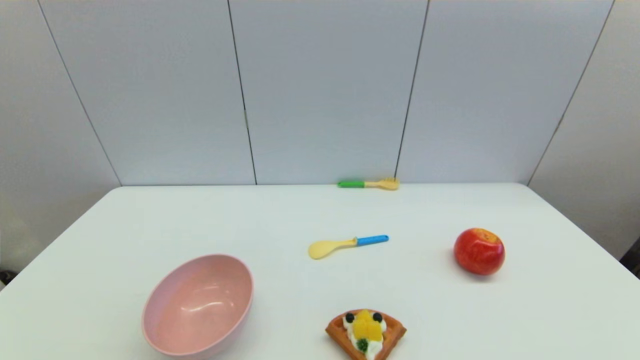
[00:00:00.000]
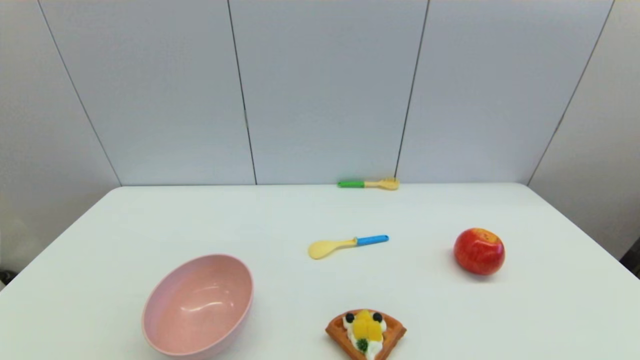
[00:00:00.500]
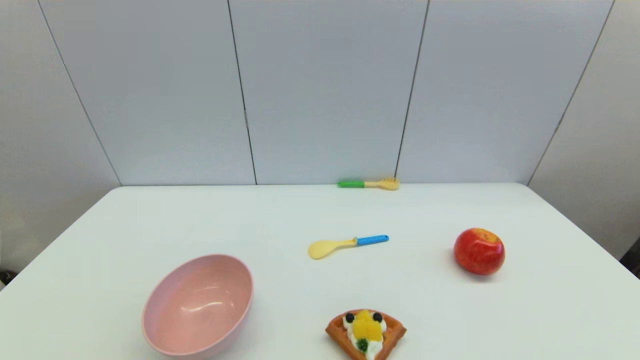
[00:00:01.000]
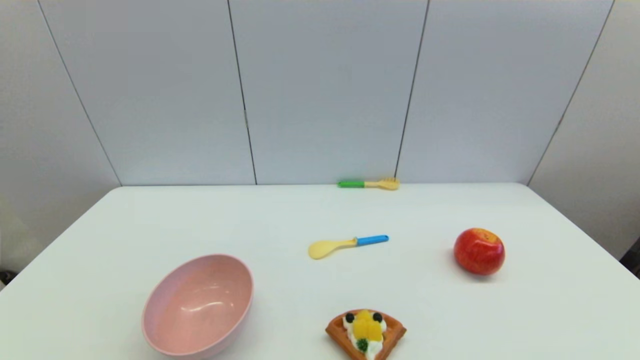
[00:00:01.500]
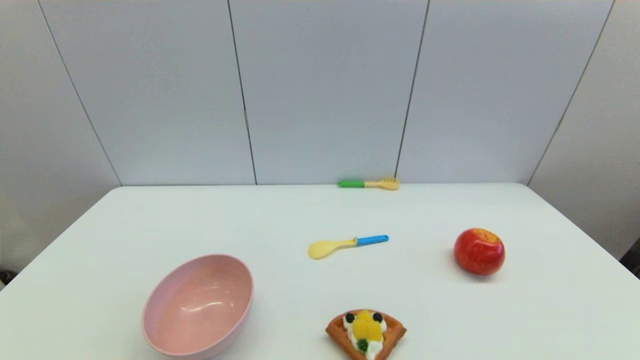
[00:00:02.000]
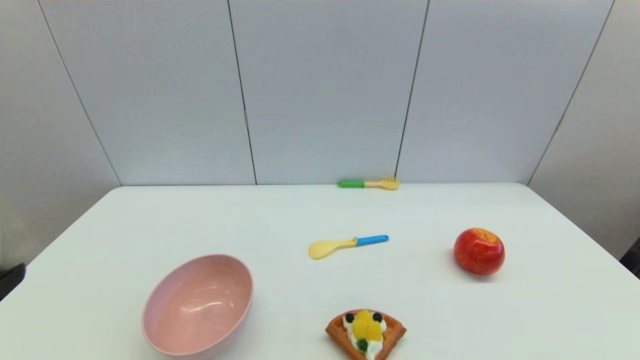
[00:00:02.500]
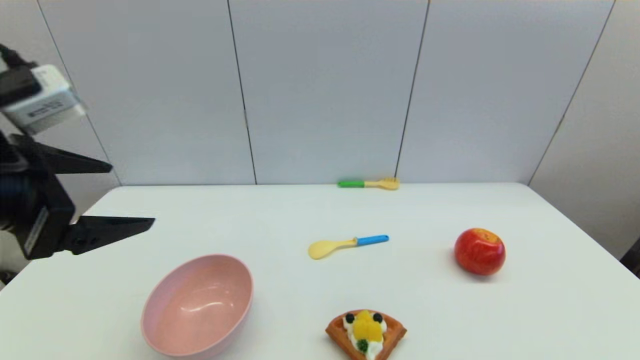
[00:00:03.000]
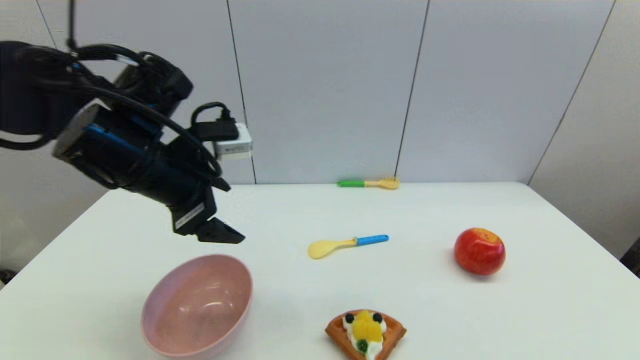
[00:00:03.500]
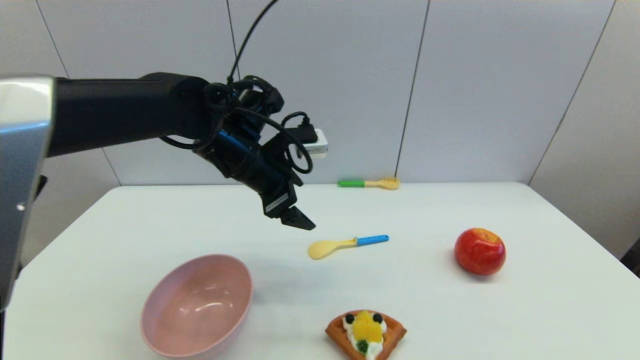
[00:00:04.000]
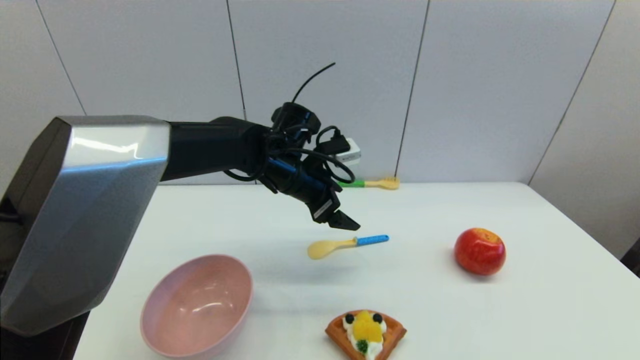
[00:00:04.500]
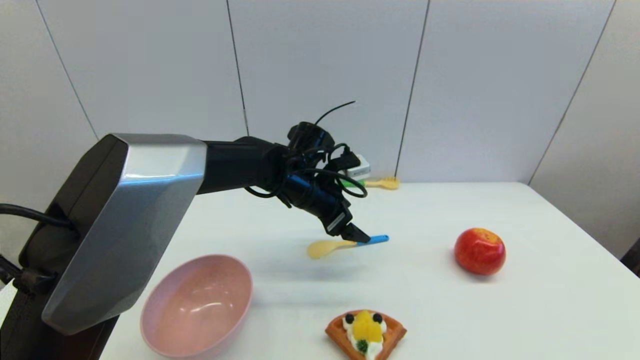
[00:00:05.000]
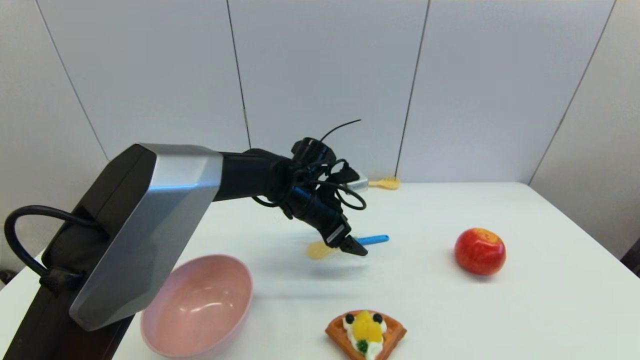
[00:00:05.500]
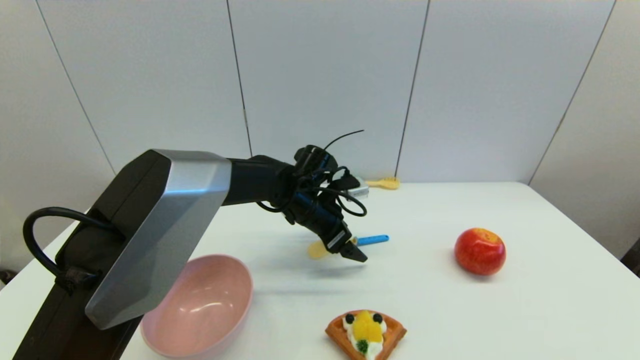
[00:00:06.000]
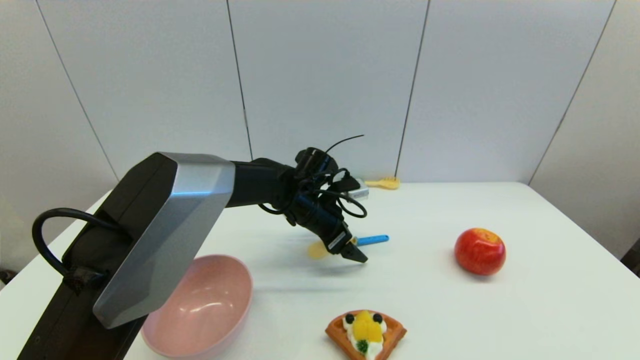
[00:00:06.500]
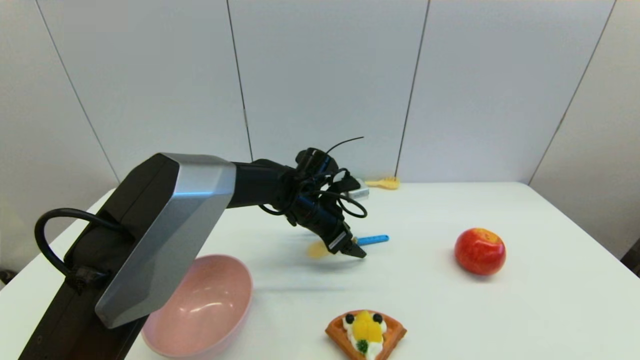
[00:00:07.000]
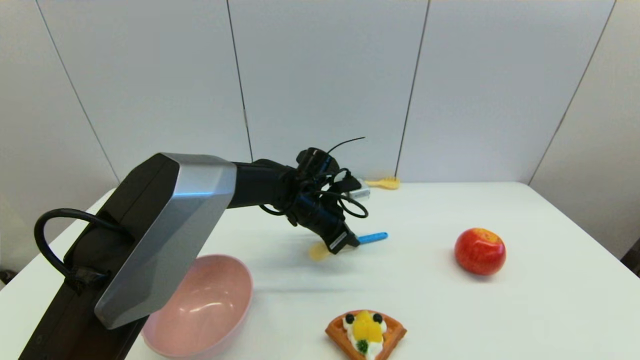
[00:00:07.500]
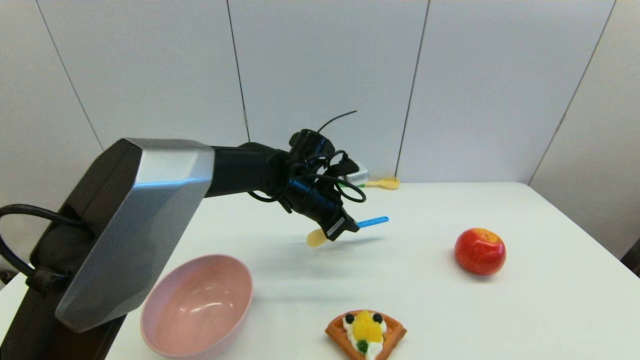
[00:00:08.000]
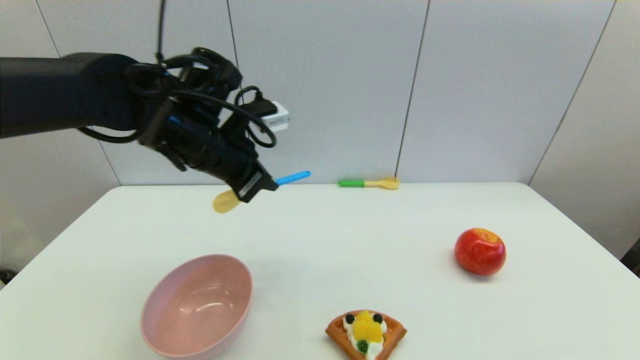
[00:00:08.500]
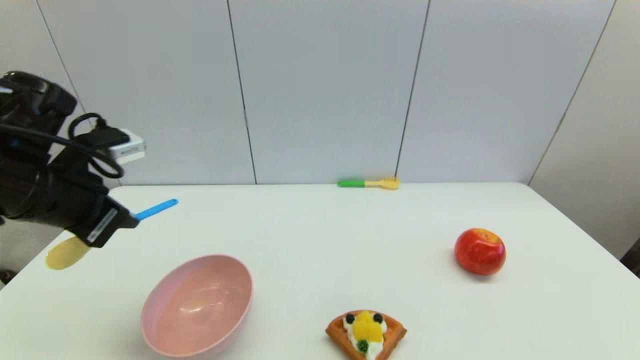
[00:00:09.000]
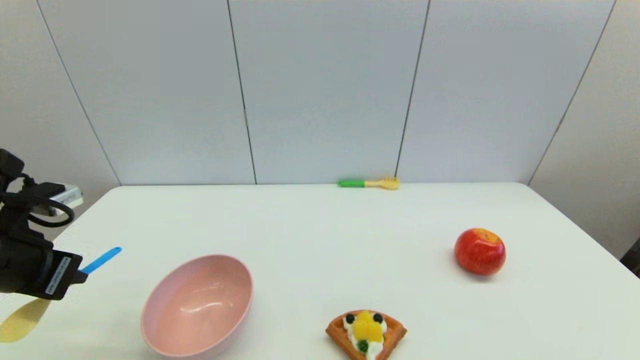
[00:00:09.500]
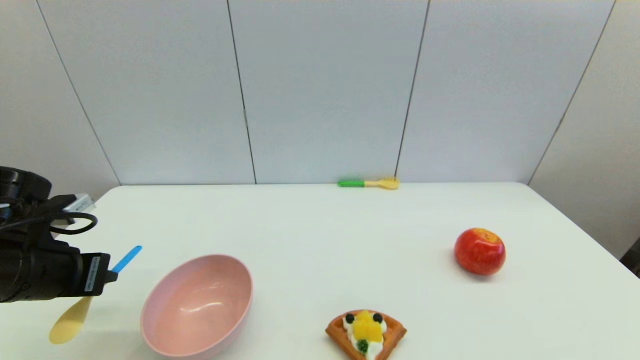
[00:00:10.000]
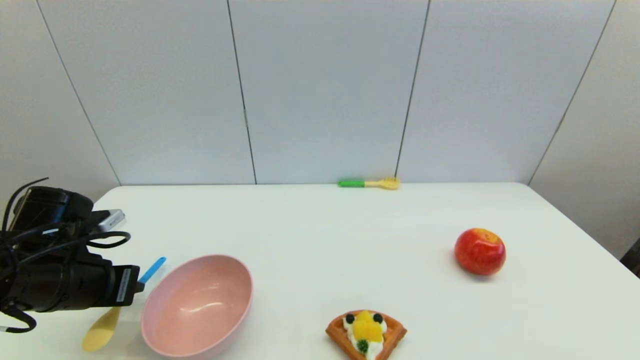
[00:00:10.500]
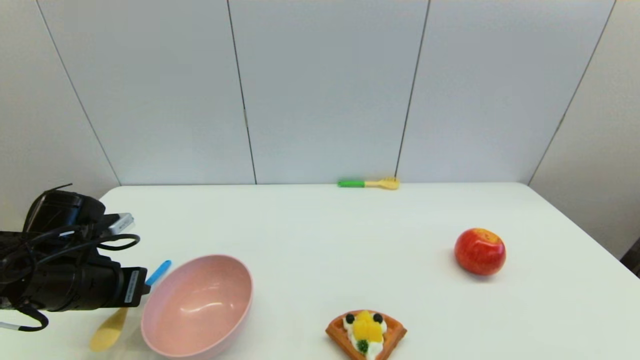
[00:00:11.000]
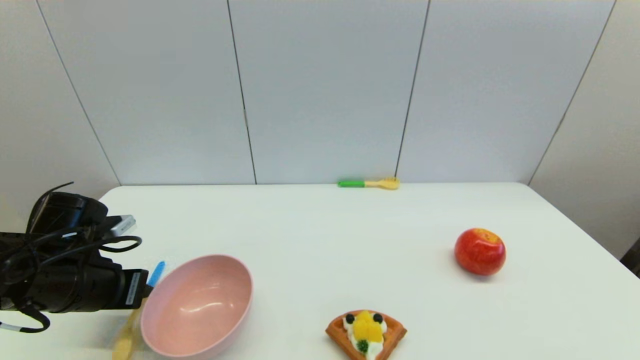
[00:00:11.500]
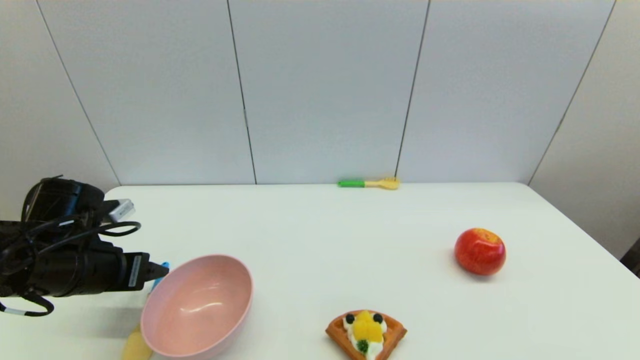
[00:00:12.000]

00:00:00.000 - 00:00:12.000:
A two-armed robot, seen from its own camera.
Step, 00:00:02.500 - 00:00:07.500: Grasp the spoon with left gripper.
Step, 00:00:08.000 - 00:00:11.500: Place the spoon on the table with left gripper.
00:00:02.000 - 00:00:04.000: The left gripper shifts about 40 cm forward and to the right.
00:00:04.000 - 00:00:06.000: The left gripper goes roughly 15 cm downward and to the right.
00:00:06.000 - 00:00:08.000: The left gripper closes.
00:00:08.000 - 00:00:10.000: The left gripper is displaced to the left and backward by approximately 35 cm.
00:00:10.000 - 00:00:12.000: The left gripper opens up.

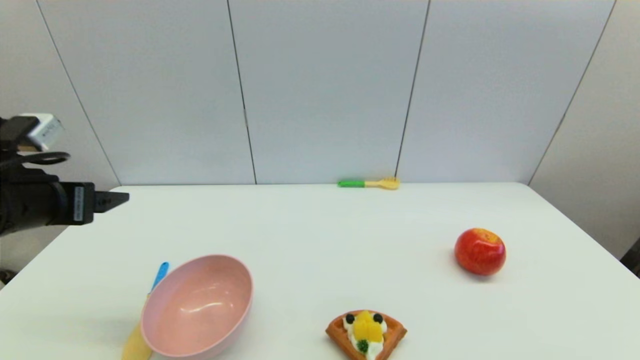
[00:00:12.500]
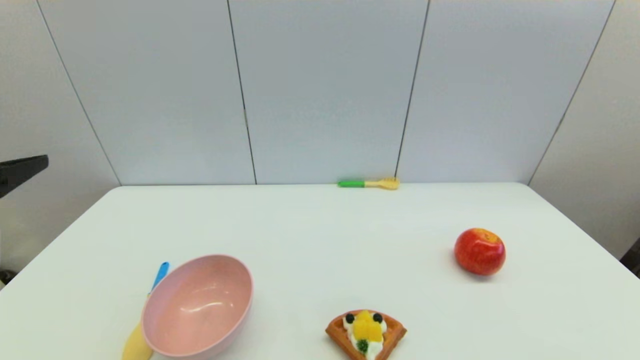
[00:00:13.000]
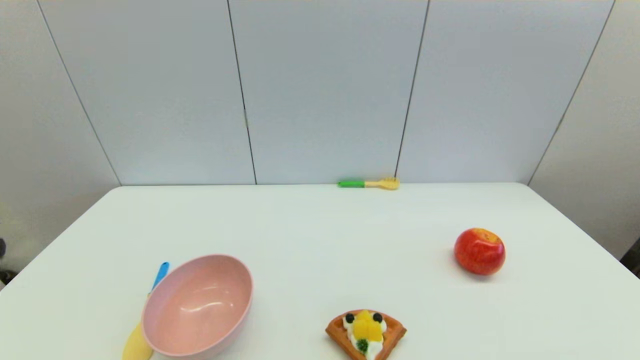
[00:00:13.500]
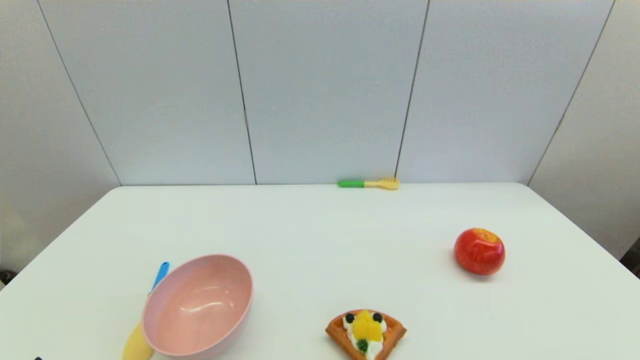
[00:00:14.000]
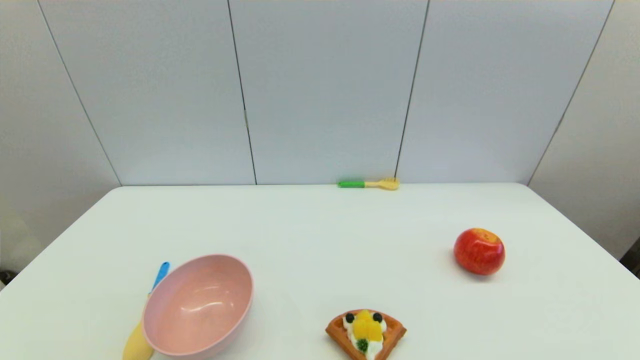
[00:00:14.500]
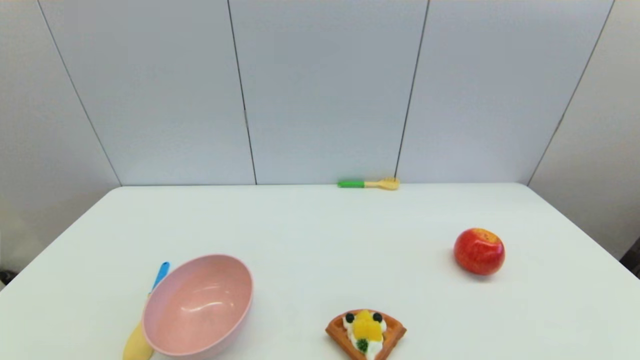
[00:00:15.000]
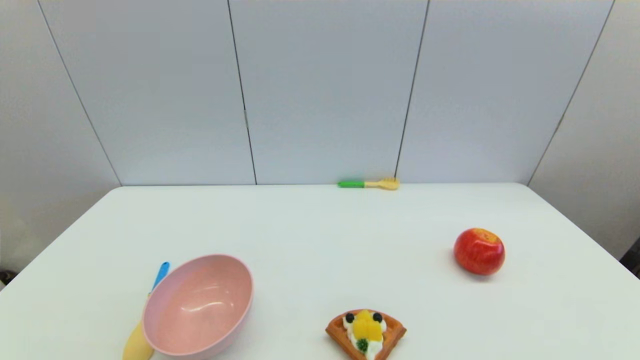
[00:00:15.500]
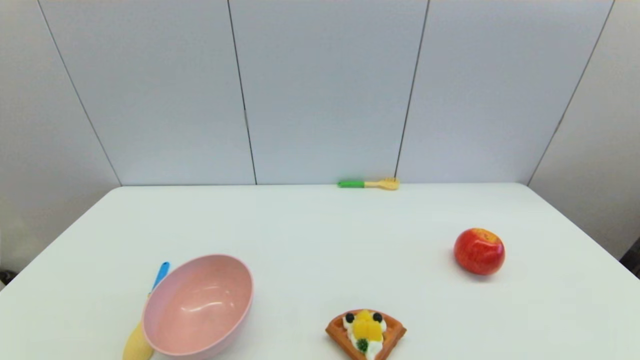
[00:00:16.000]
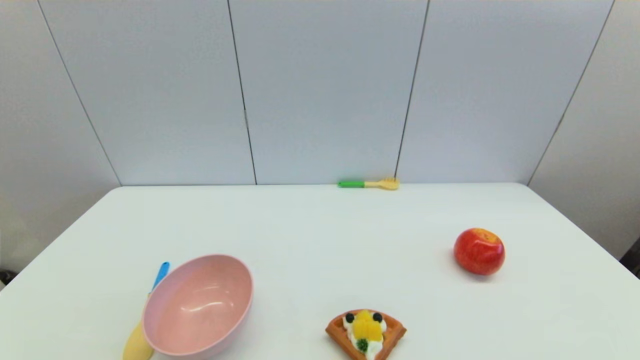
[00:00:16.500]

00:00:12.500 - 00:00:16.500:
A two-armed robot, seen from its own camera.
00:00:12.500 - 00:00:14.500: The left gripper moves backward and downward, approximately 30 cm.
